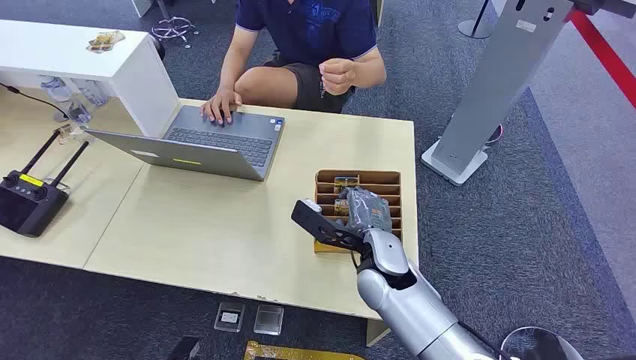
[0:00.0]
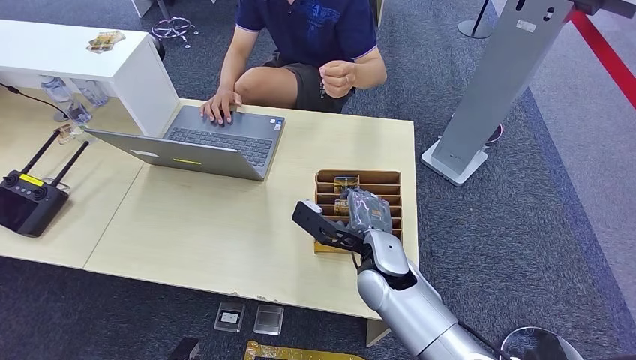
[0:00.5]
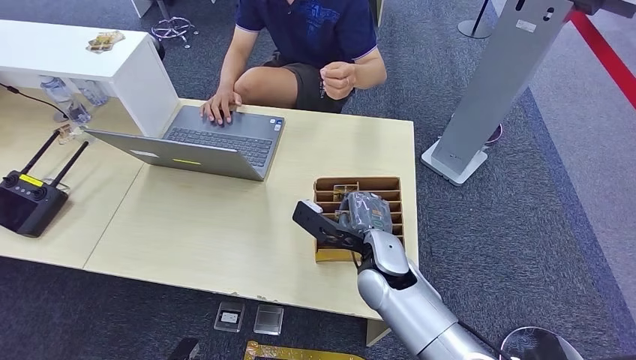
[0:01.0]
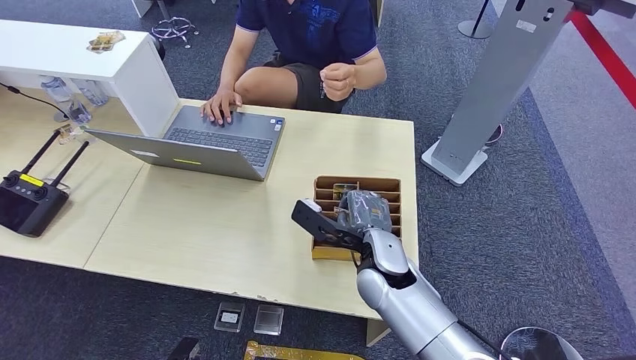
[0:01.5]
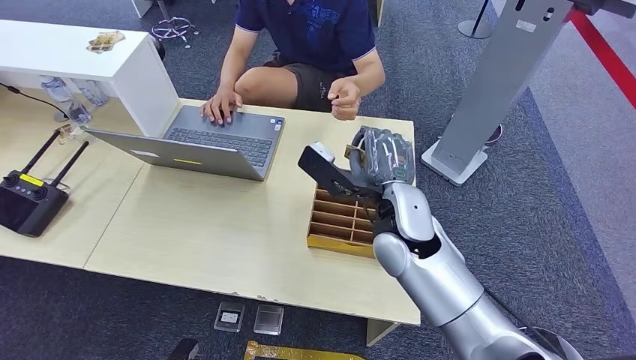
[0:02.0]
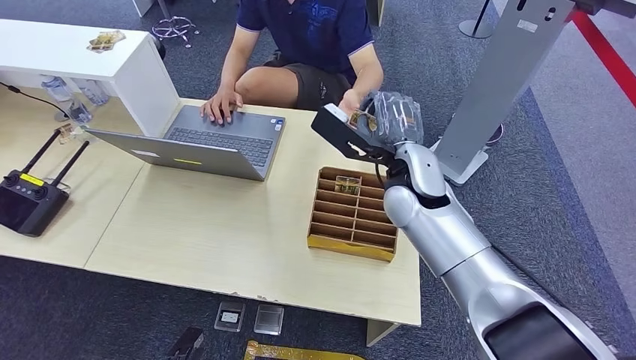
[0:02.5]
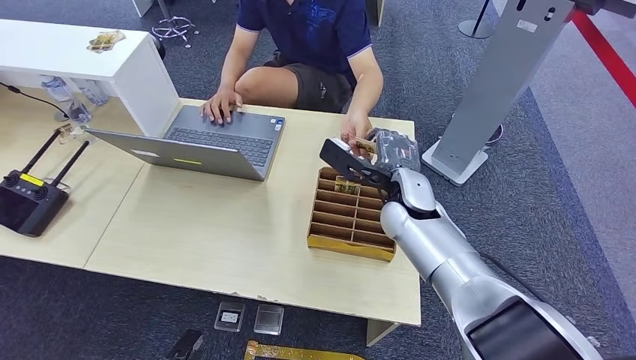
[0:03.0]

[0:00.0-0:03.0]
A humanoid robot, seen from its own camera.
Step, 0:00.0 to 0:01.5: Pick up the key card from the card box.
Step, 0:02.5 to 0:03.0: Hand the key card to the target.
0:01.5 to 0:03.0: The right hand heads forward and upward, covering some 10 cm.
